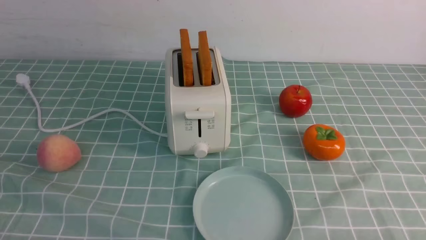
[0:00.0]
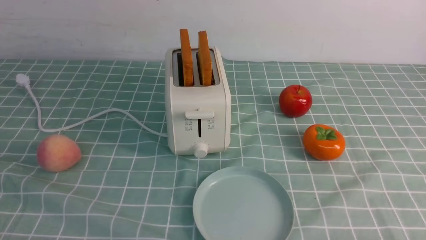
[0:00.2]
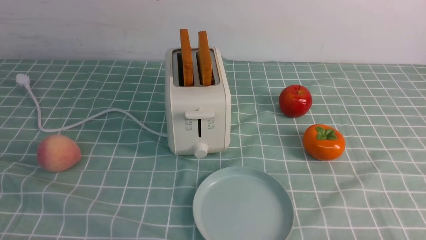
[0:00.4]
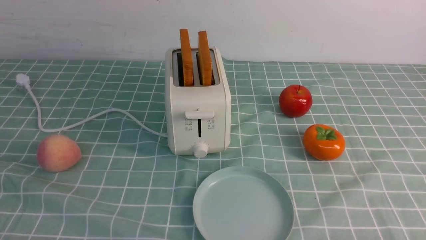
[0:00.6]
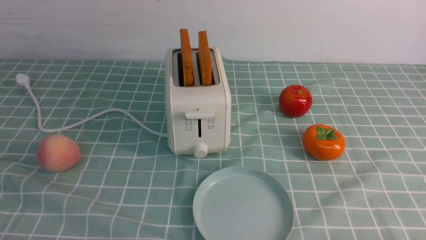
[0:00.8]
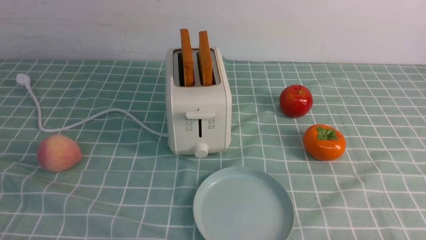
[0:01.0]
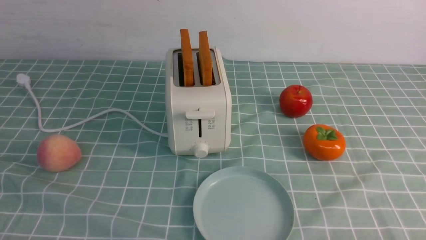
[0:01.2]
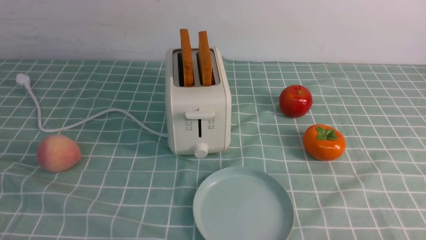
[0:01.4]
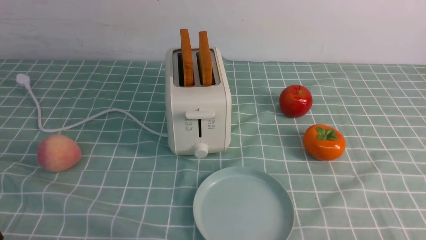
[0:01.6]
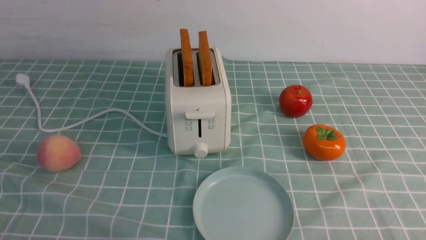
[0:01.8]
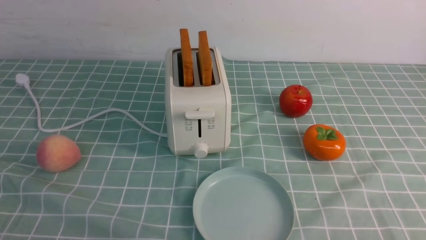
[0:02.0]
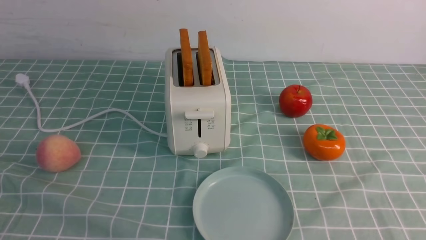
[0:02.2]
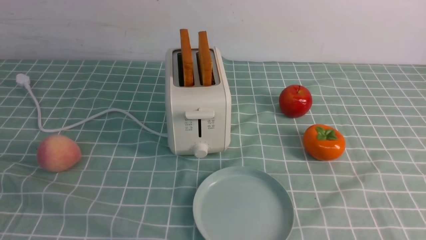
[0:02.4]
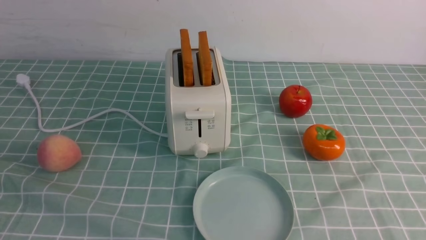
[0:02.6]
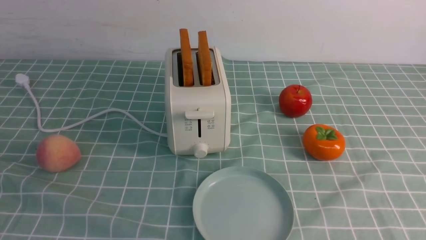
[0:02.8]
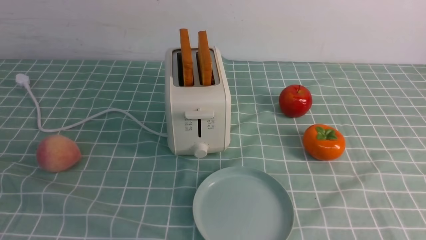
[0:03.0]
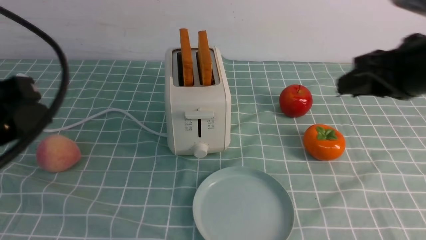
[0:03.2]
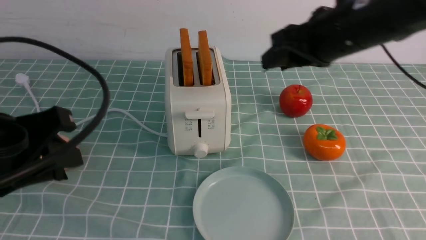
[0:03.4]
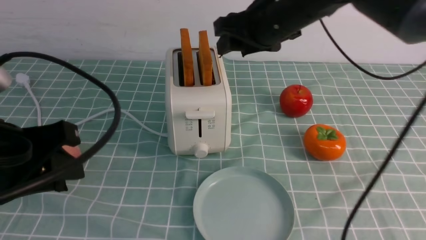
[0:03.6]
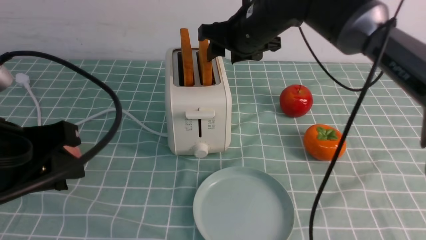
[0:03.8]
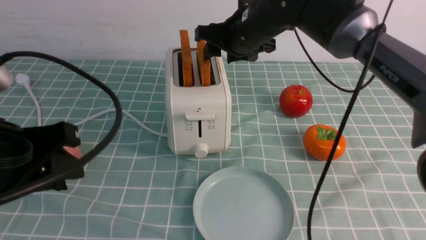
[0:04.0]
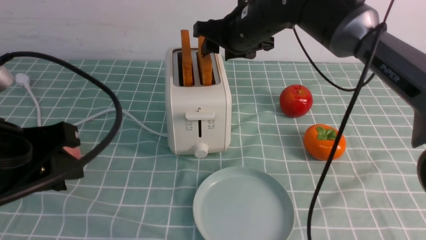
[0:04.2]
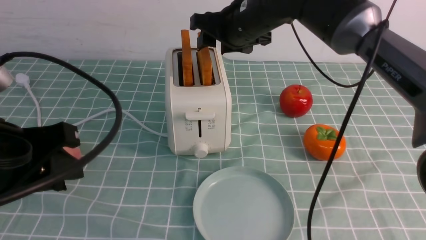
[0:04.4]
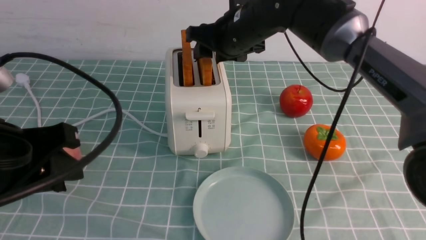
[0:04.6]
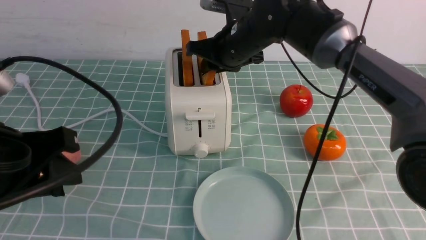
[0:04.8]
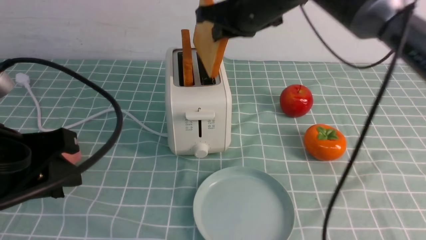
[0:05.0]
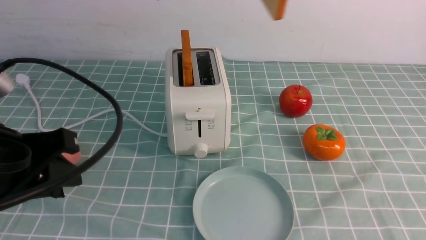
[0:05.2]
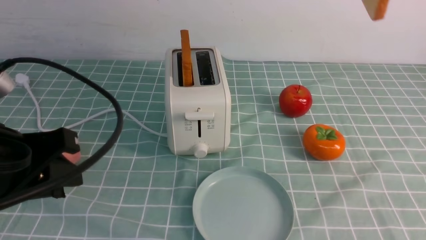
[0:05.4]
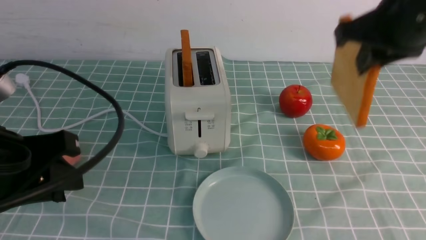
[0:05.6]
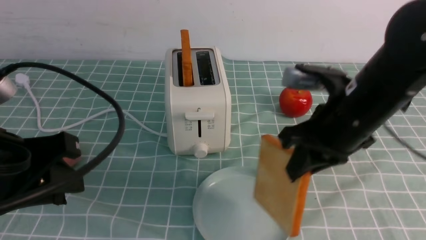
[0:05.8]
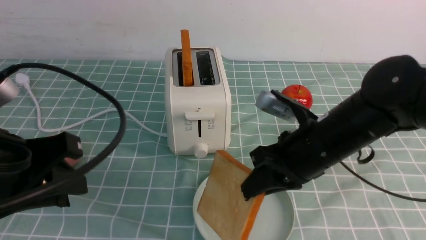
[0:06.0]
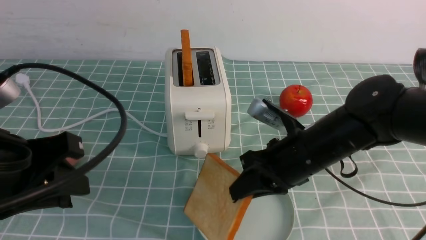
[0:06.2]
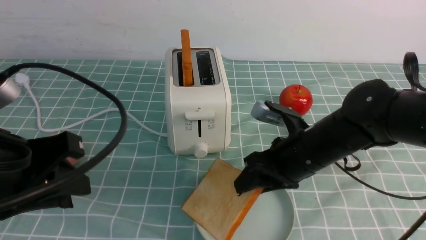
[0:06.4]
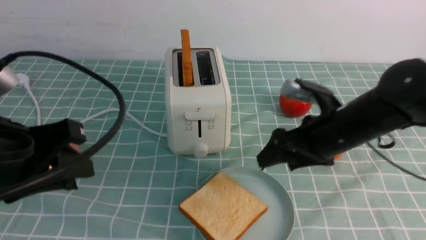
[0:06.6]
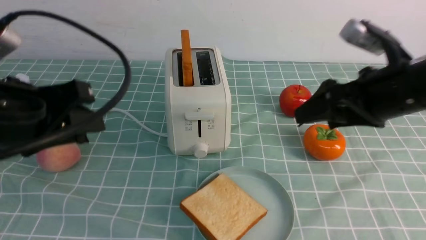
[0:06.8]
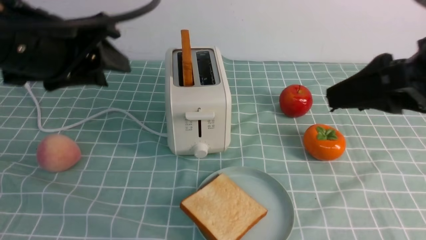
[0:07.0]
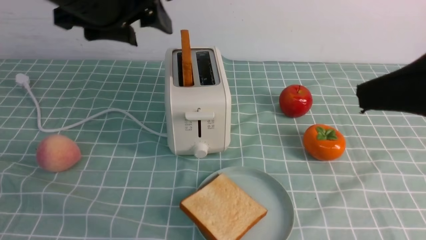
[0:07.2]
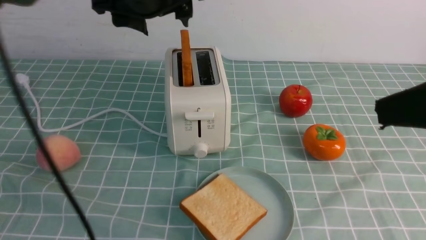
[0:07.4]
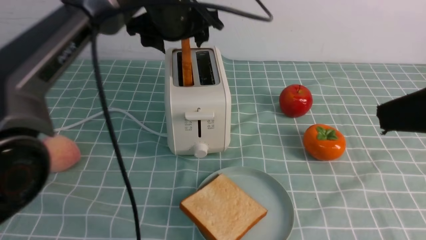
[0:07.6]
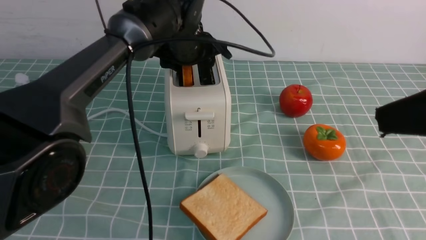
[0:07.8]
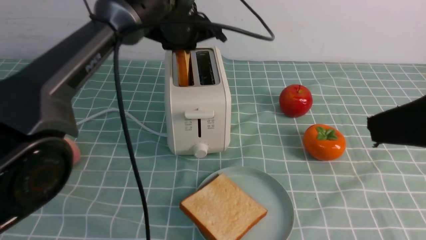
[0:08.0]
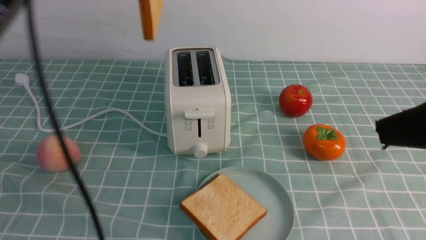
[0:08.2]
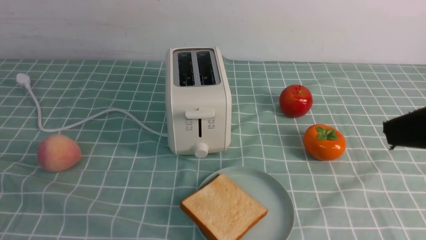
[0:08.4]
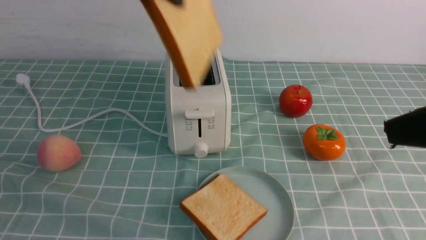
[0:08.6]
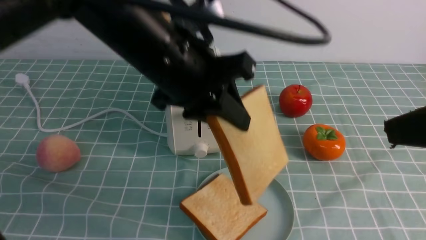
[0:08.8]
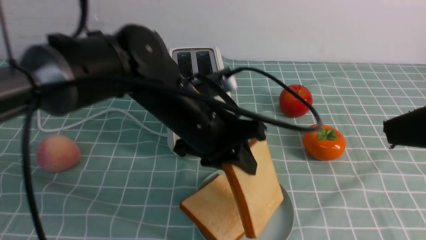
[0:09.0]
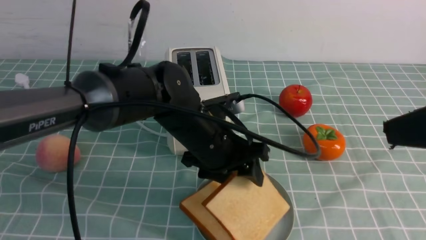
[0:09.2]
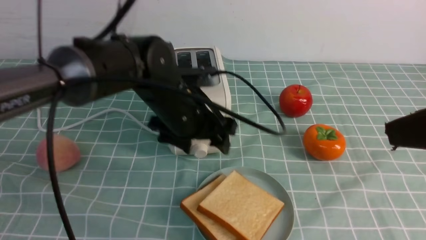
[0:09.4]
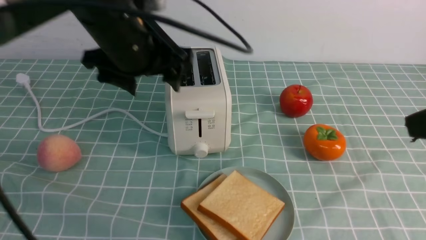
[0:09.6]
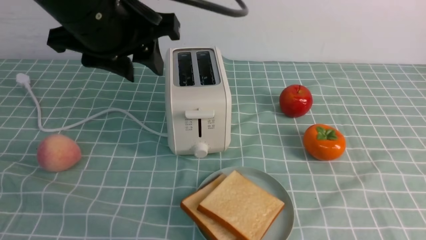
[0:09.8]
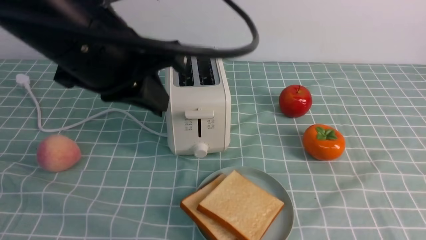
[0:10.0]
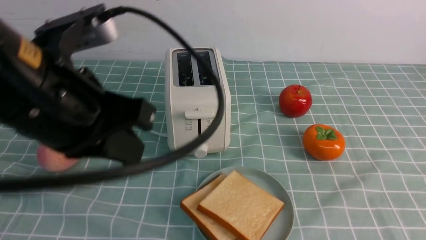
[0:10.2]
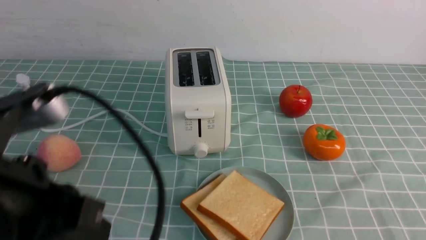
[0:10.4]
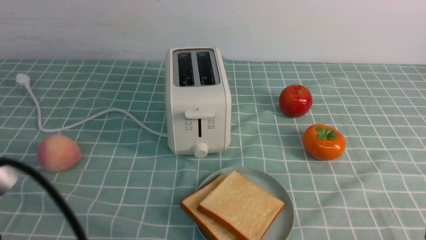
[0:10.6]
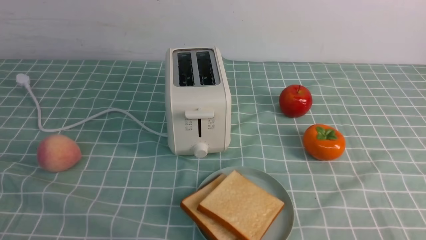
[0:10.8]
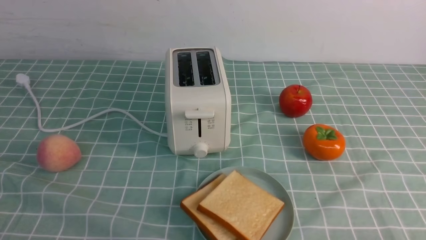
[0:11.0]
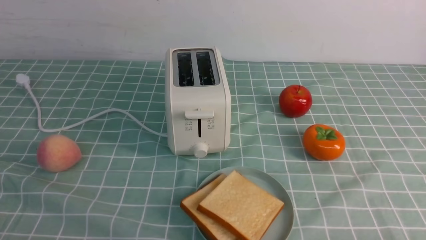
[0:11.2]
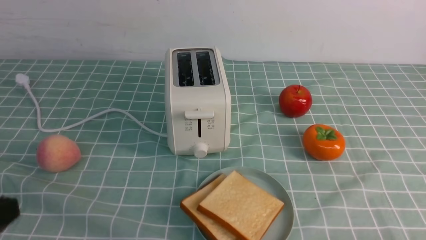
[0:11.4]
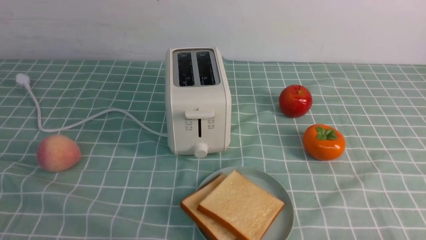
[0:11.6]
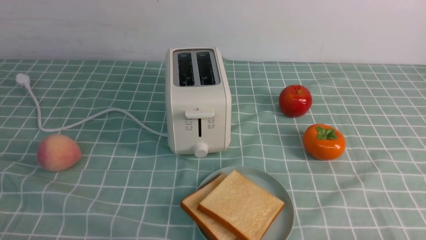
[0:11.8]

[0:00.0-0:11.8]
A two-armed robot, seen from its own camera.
Task of the whole recording: take toasted bread from bread machine on blue coffee table place on plate.
Step, 0:00.0 to 0:05.0: use the right arm to take out a slice of bread.
Step, 0:05.2 to 0:06.6: use the right arm to put a slice of bread into the plate.
Step, 0:06.8 to 0:08.0: use the left arm to take out a slice of bread.
Step, 0:08.2 to 0:09.2: use the left arm to put a slice of bread into the empty plate.
0:03.0 to 0:04.4: The left gripper goes approximately 5 cm downward; the right gripper moves to the left and forward, roughly 30 cm.
0:04.4 to 0:06.0: The right gripper goes roughly 20 cm backward, downward and to the right, and closes up.
0:06.0 to 0:07.4: The right gripper heads upward, backward and to the right, covering some 25 cm, and opens, while the left gripper shifts roughly 25 cm forward and to the right, and opens.
0:07.4 to 0:08.8: The left gripper moves up and down over approximately 15 cm, changing direction 2 times, and closes its fingers.
0:08.8 to 0:10.4: The right gripper moves downward and backward, roughly 15 cm, and closes up. The left gripper moves backward and to the left, some 20 cm, and opens and closes again.
0:10.4 to 0:11.8: The left gripper is displaced downward, to the left and backward by some 20 cm. Meanwhile the right gripper is displaced downward by about 10 cm.

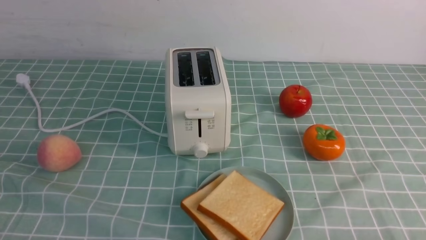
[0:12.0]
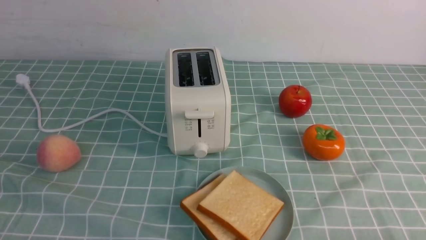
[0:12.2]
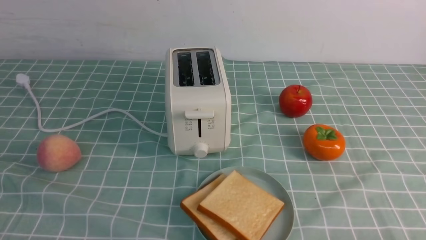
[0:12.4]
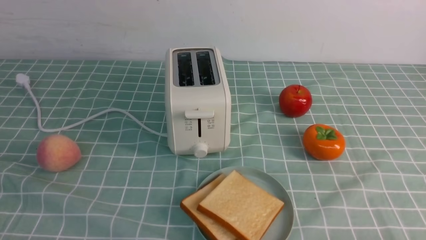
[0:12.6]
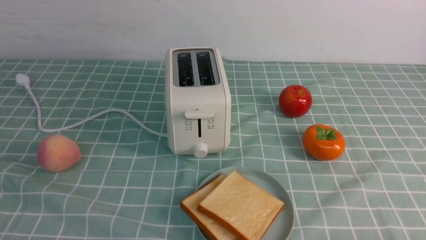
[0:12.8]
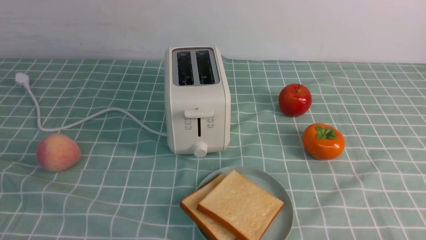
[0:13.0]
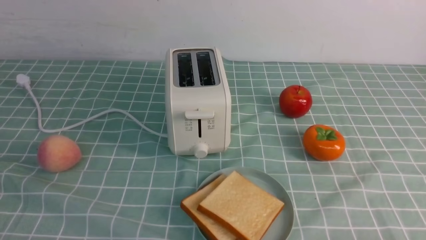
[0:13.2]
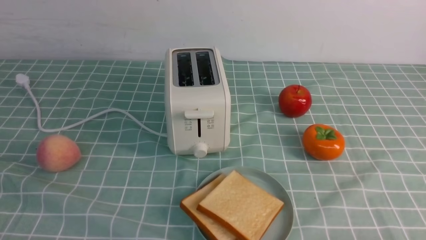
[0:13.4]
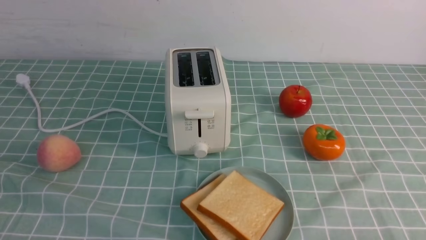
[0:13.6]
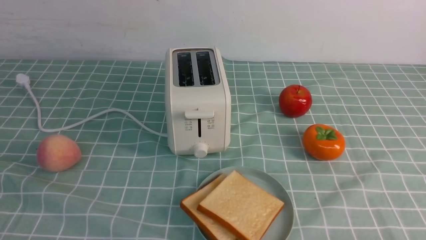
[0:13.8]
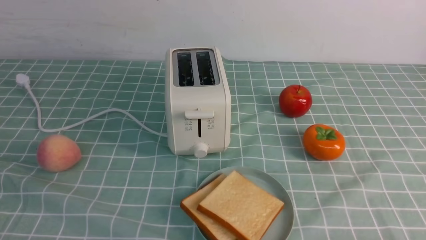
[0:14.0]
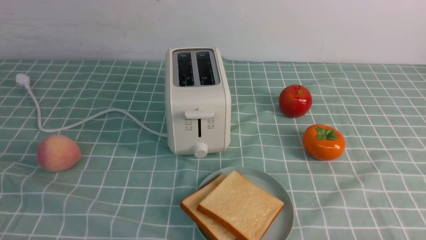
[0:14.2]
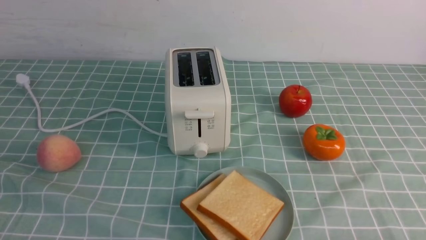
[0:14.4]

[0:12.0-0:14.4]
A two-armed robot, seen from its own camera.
Task of the whole recording: take toasted bread from bread machine on blue coffee table place on plate.
0:13.2 to 0:14.4: The two grippers keep their place.

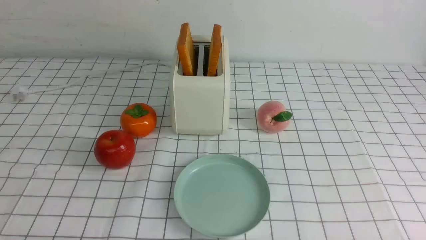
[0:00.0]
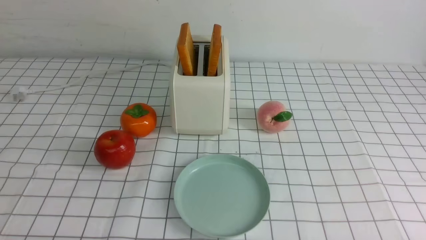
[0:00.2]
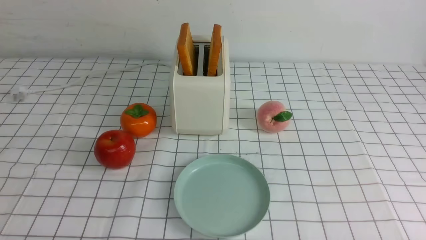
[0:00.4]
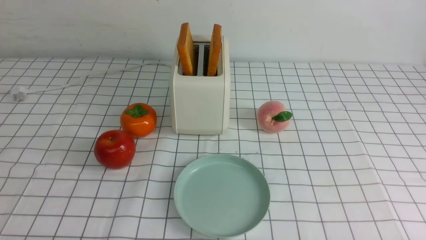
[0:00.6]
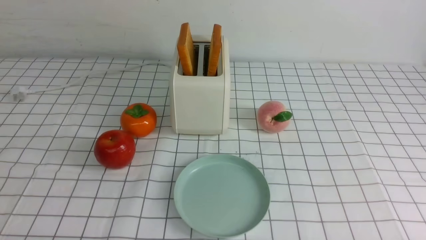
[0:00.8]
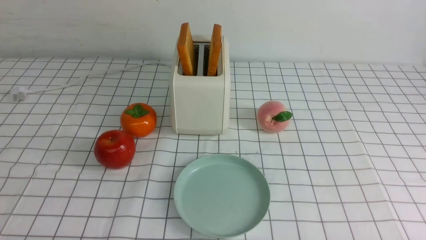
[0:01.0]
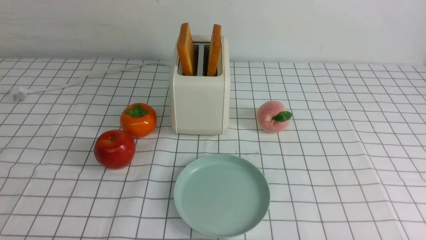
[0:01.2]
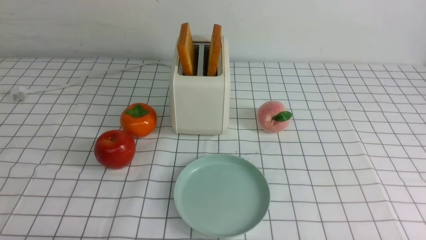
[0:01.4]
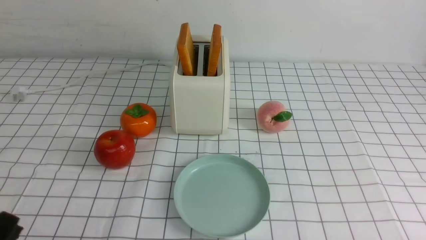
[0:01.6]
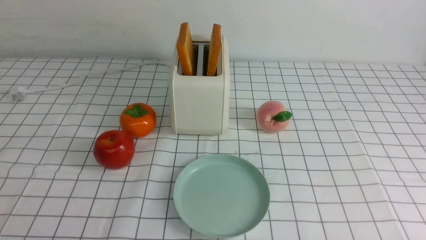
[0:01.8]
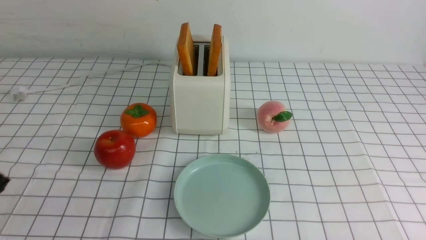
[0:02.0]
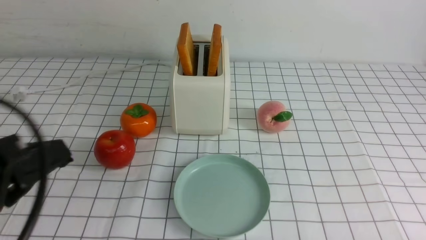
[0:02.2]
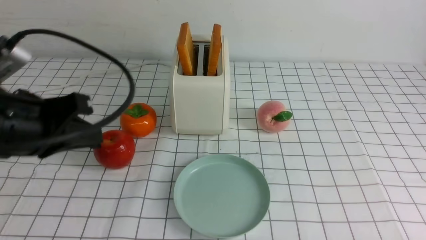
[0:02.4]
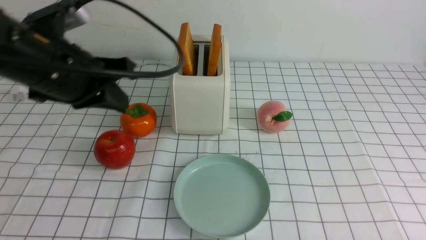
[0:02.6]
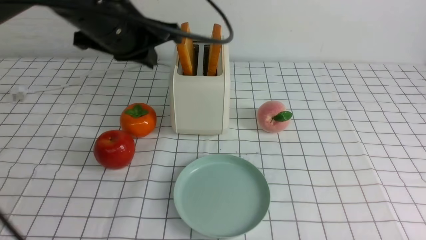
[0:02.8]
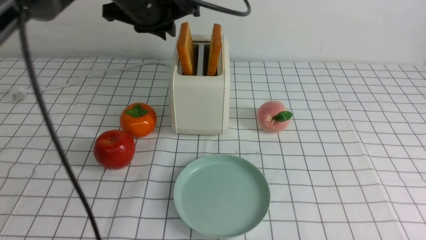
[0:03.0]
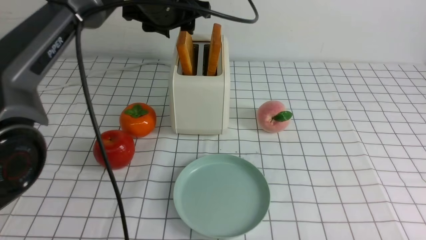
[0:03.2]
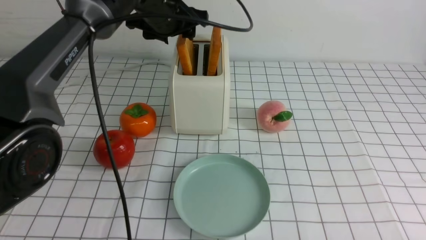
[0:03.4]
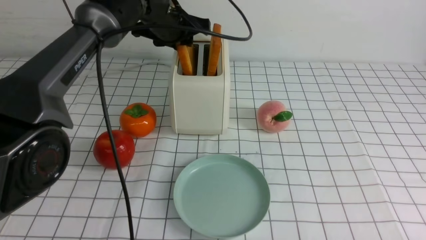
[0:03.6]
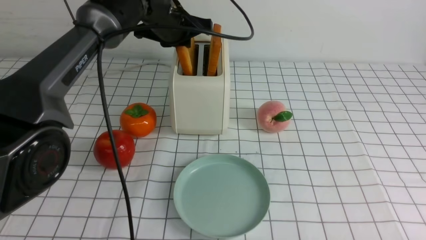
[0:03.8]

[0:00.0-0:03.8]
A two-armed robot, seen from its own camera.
Task of the whole recording: take toasted bread from bread machine on white checkered table place on plate.
0:01.2 to 0:02.6: The left gripper heads forward and upward, covering approximately 30 cm, and closes.
0:02.6 to 0:03.8: The left gripper is displaced forward and to the right by some 20 cm, and opens, then closes once more.
